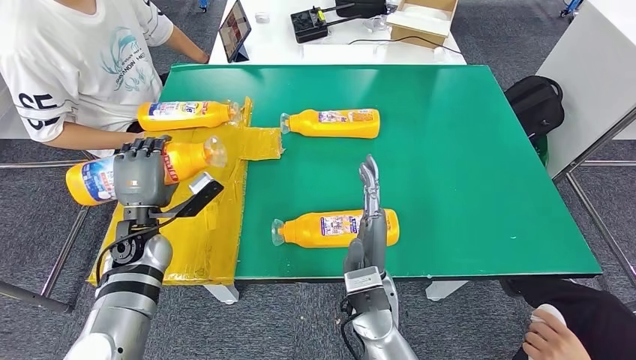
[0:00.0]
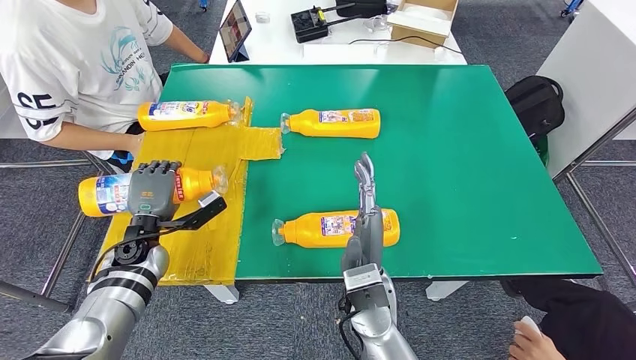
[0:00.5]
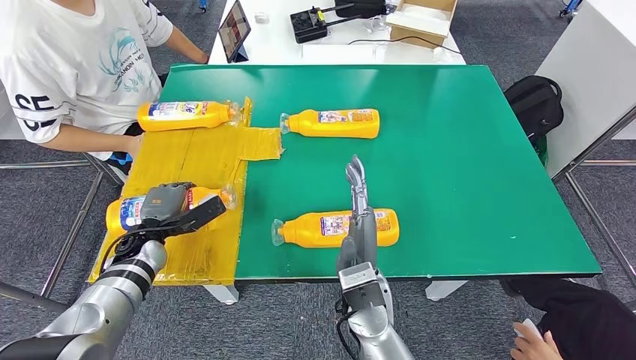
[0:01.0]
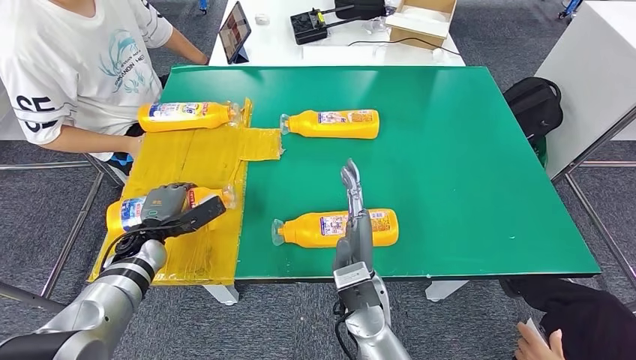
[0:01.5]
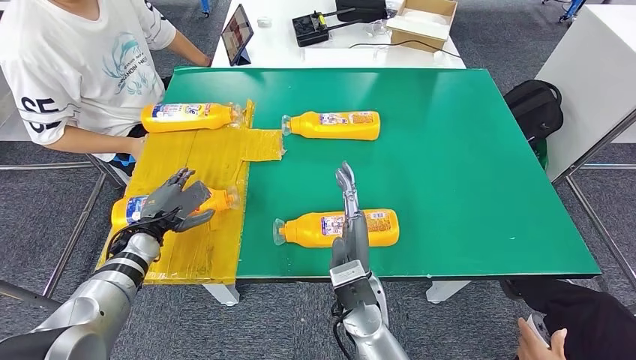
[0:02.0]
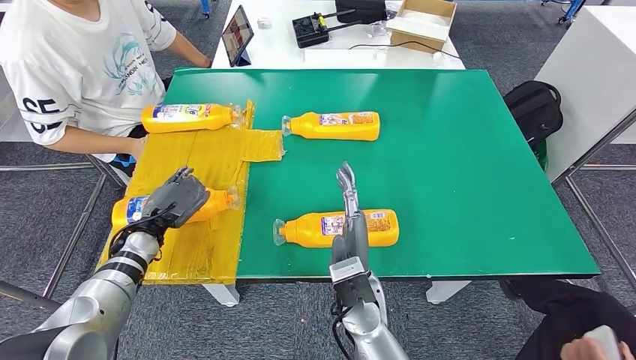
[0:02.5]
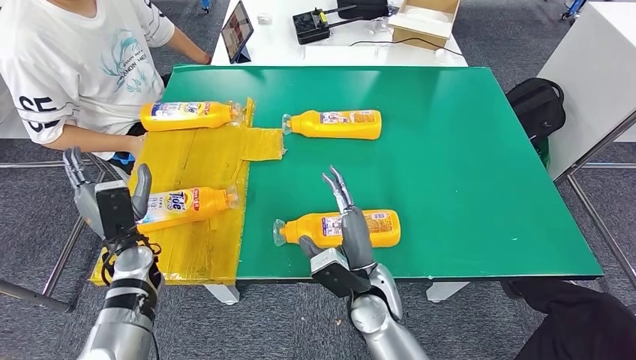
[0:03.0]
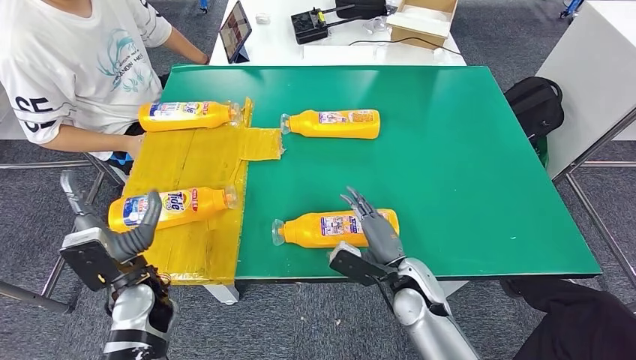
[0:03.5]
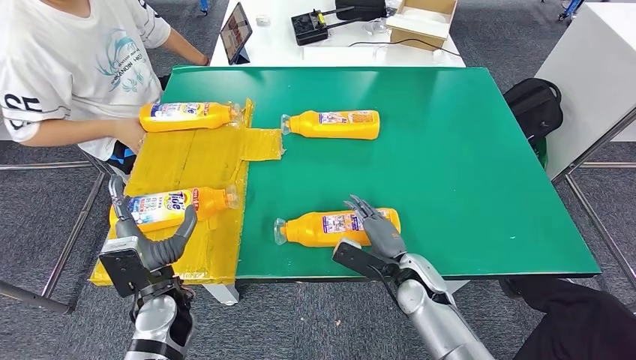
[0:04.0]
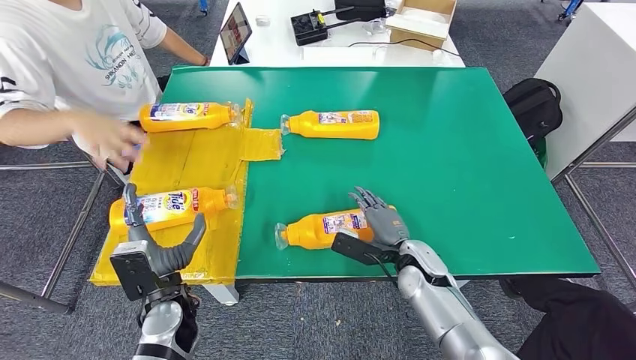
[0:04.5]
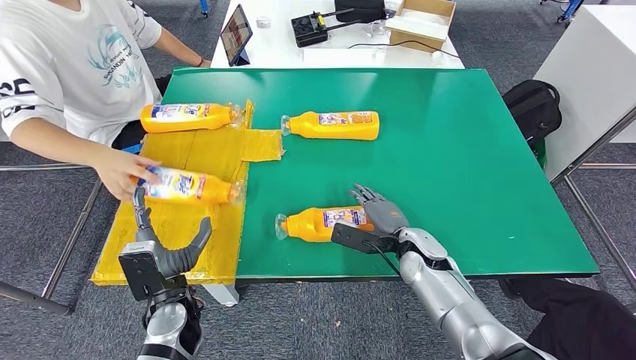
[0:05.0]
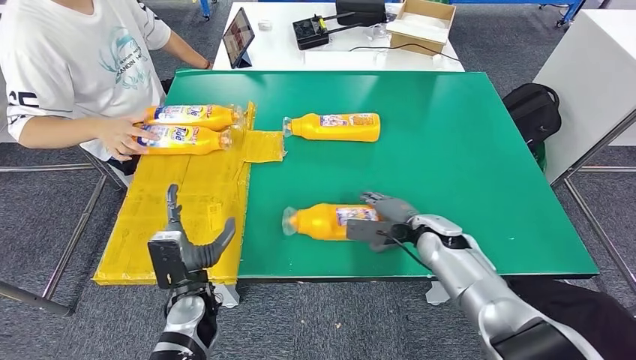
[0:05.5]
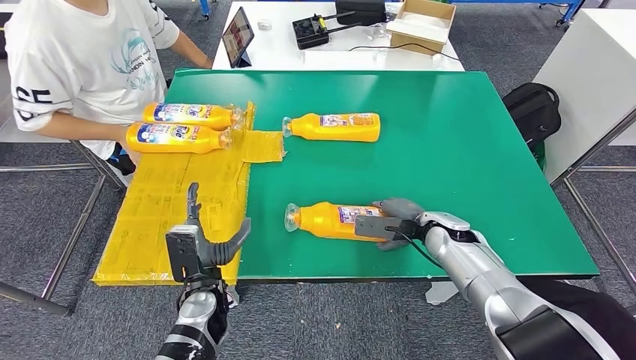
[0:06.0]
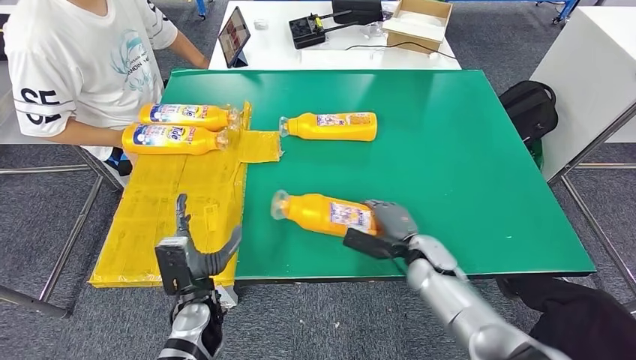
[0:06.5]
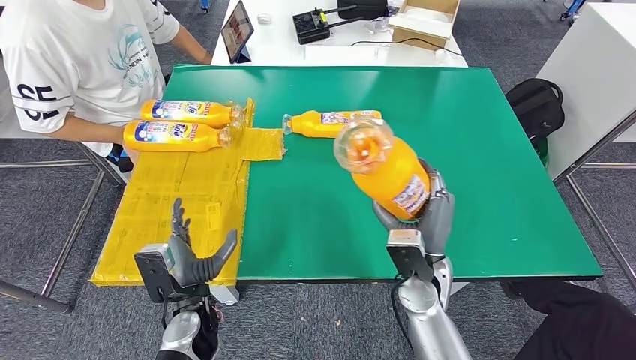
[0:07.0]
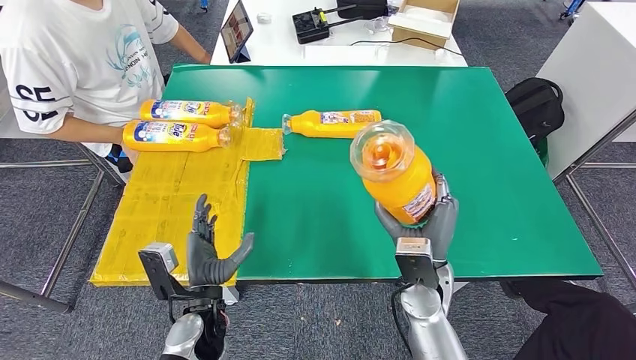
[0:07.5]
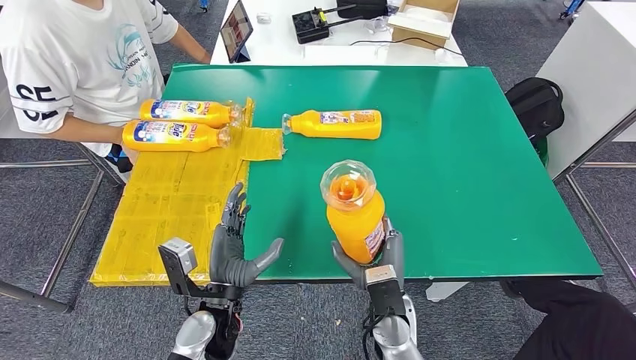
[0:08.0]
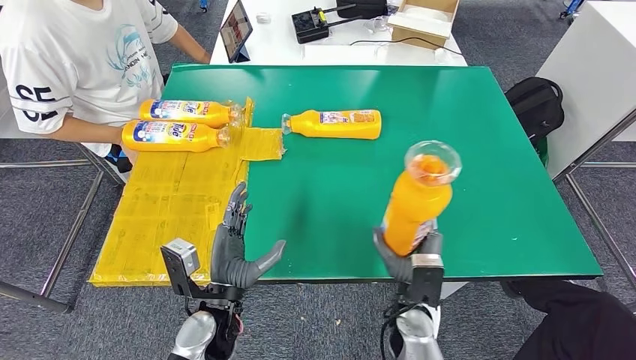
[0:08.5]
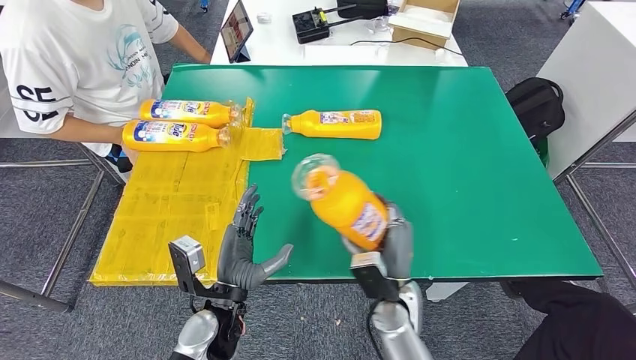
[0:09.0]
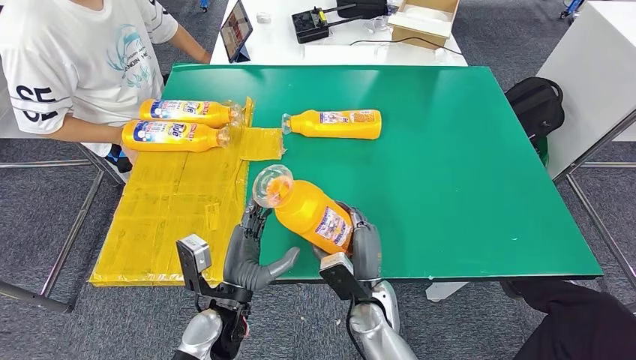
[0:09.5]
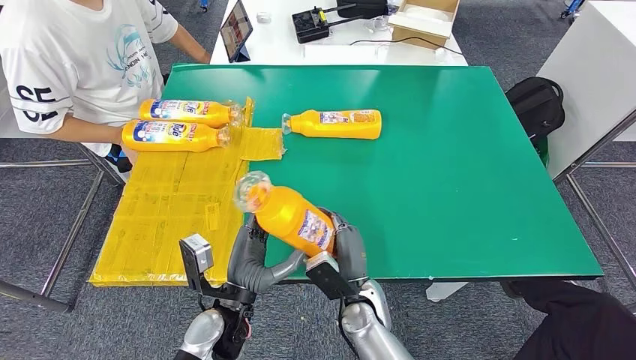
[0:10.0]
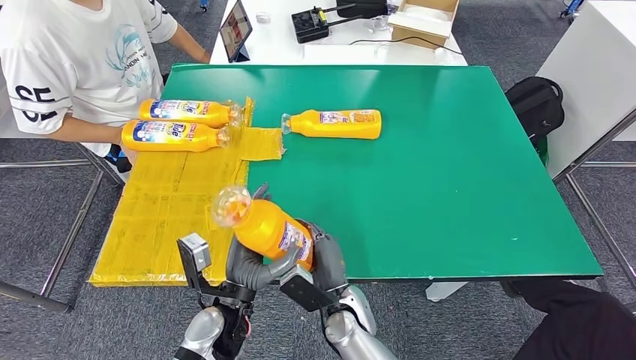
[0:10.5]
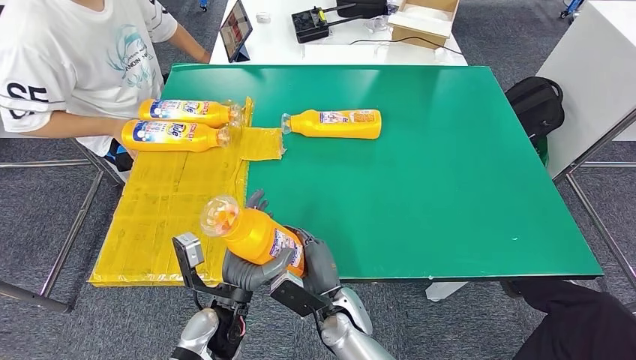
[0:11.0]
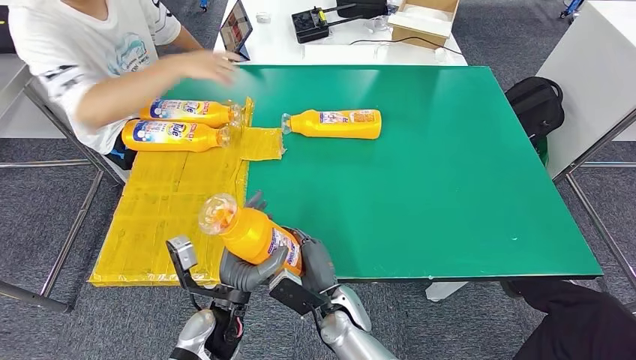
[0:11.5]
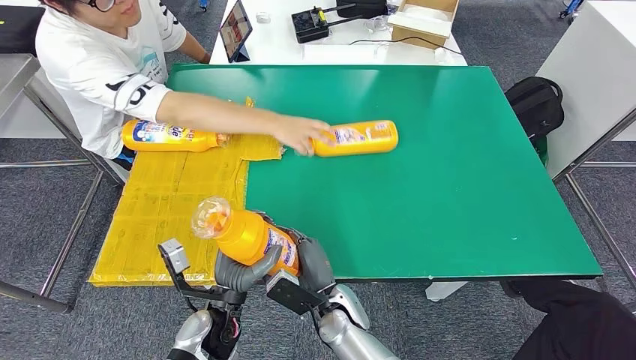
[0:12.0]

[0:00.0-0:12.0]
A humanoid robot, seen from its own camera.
Step, 0:00.0 to 0:02.0: Flip the fast-moving consumer goods bottle to the front side.
Step, 0:02.5 to 0:08.0: Pick up the fast-moving consumer goods bottle from the table.
0:08.0 to 0:10.0: The right hand ends up roughly 5 cm from where it was.

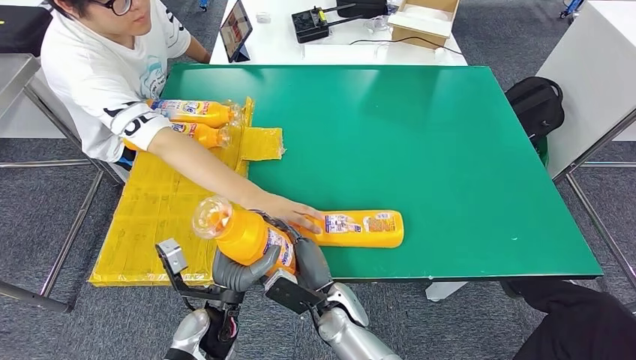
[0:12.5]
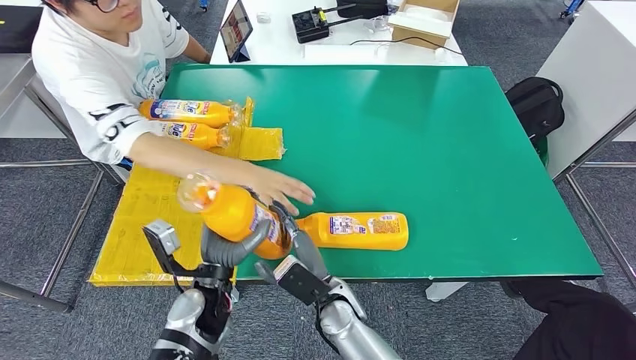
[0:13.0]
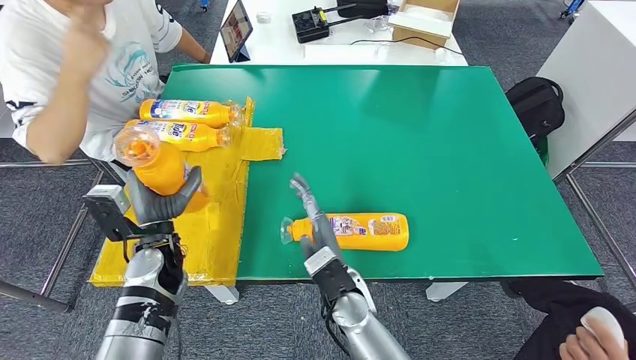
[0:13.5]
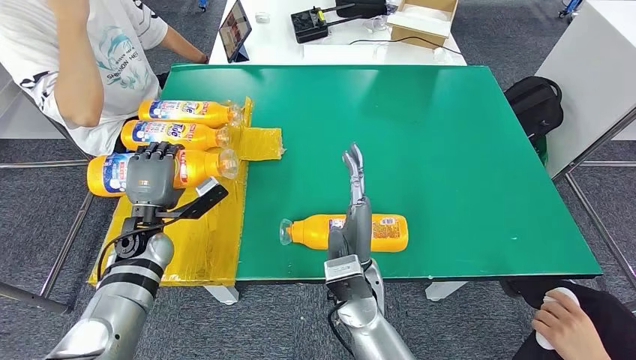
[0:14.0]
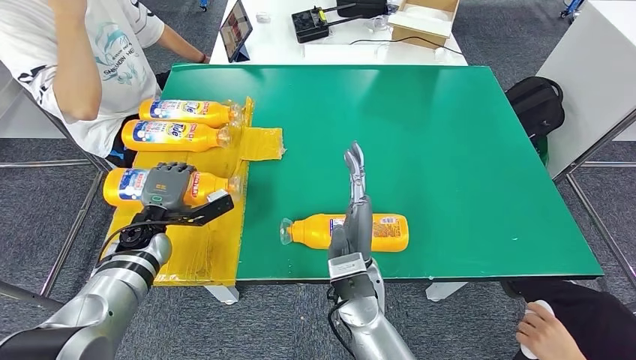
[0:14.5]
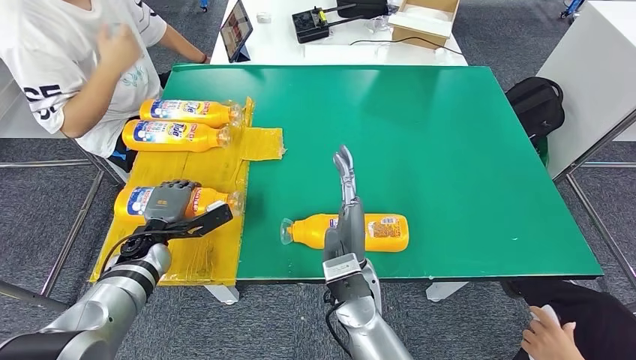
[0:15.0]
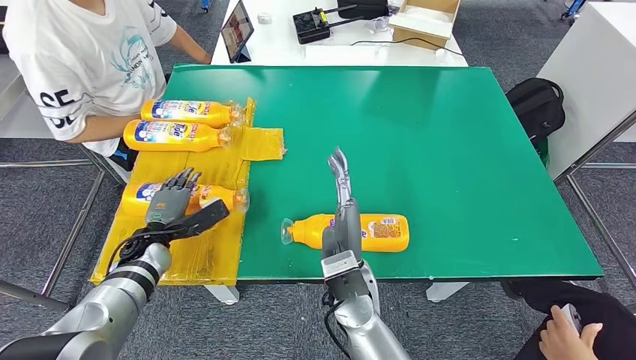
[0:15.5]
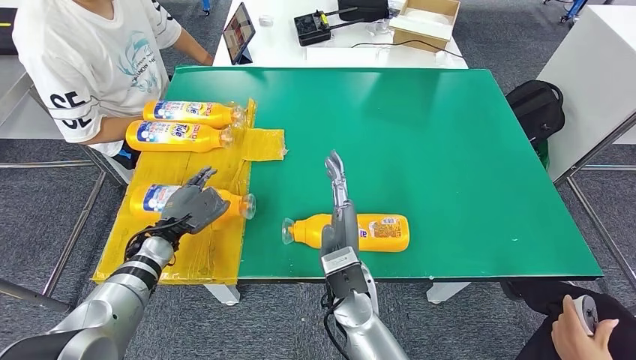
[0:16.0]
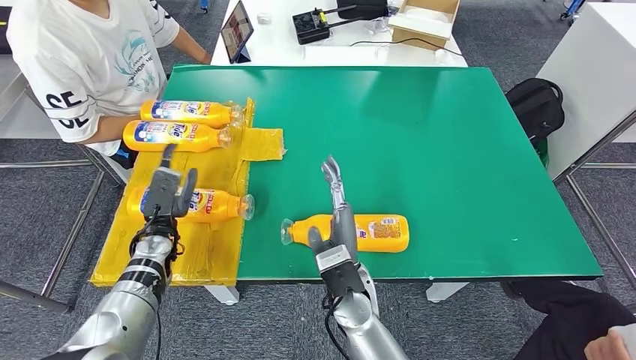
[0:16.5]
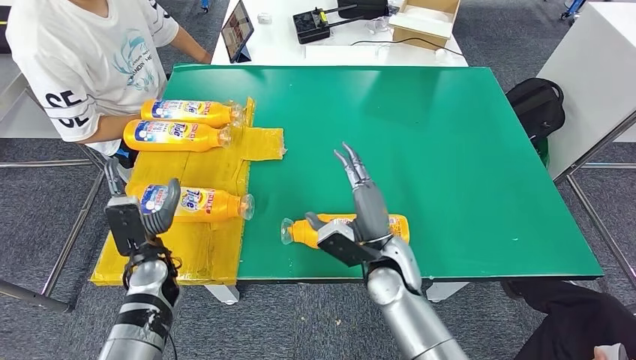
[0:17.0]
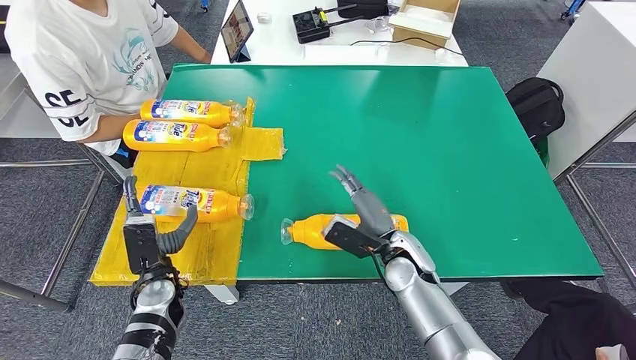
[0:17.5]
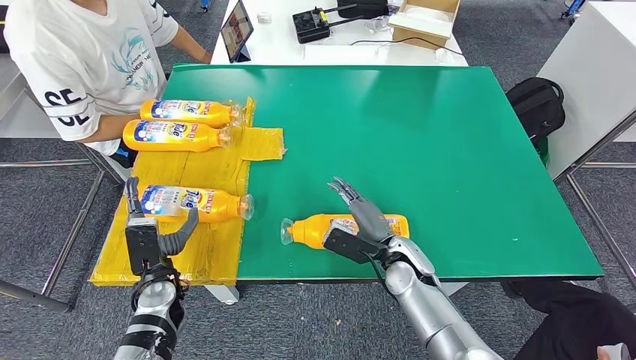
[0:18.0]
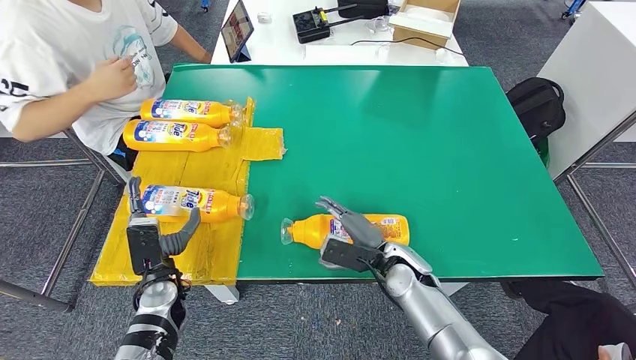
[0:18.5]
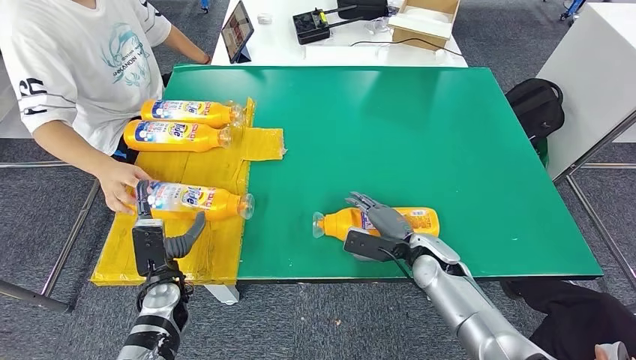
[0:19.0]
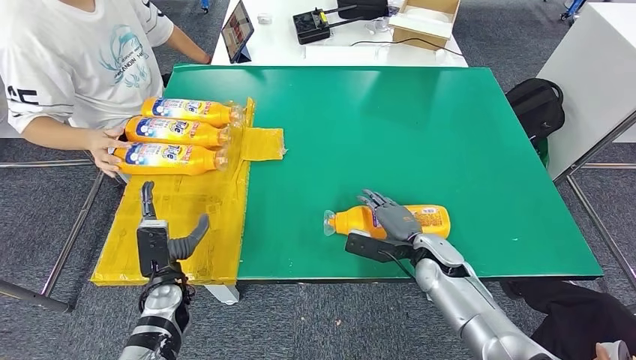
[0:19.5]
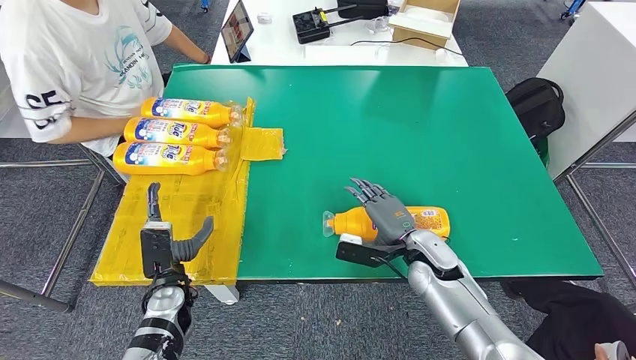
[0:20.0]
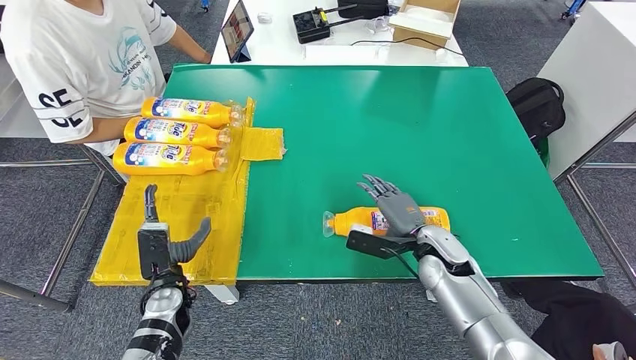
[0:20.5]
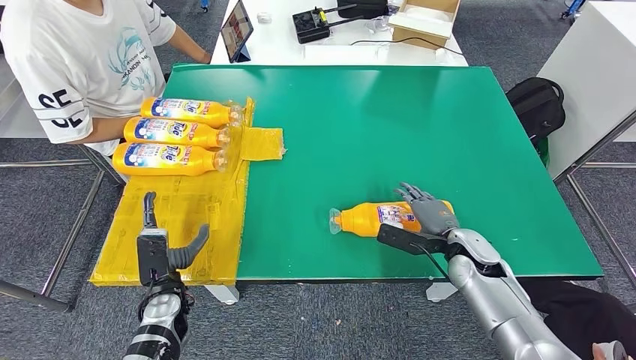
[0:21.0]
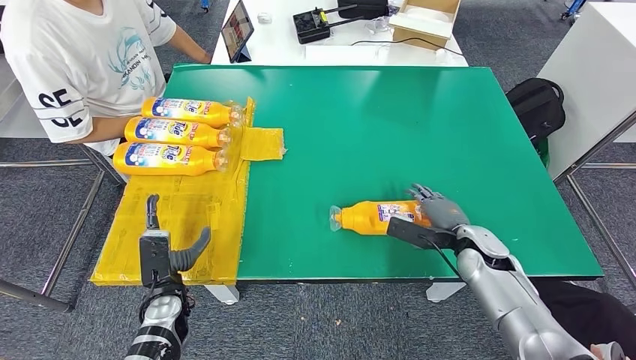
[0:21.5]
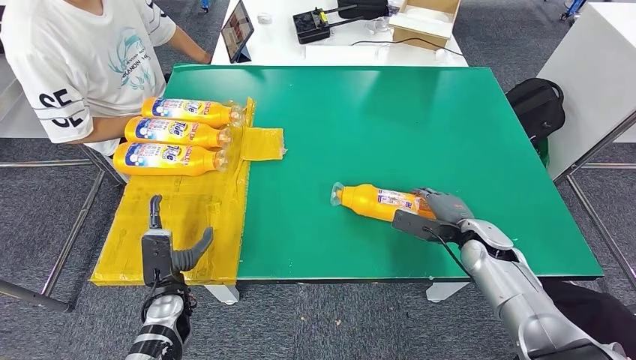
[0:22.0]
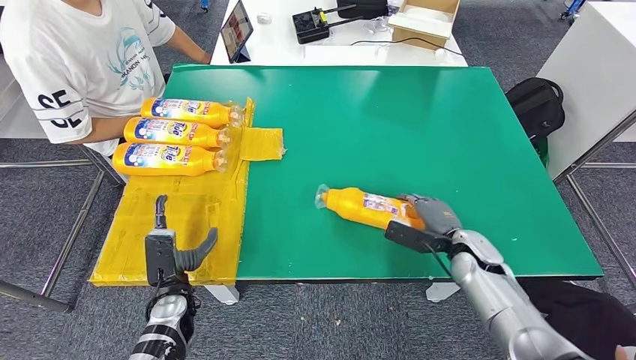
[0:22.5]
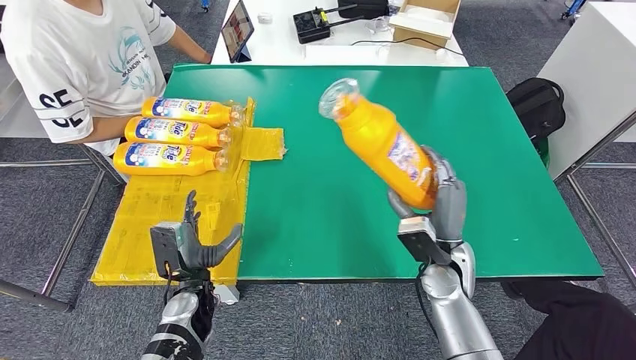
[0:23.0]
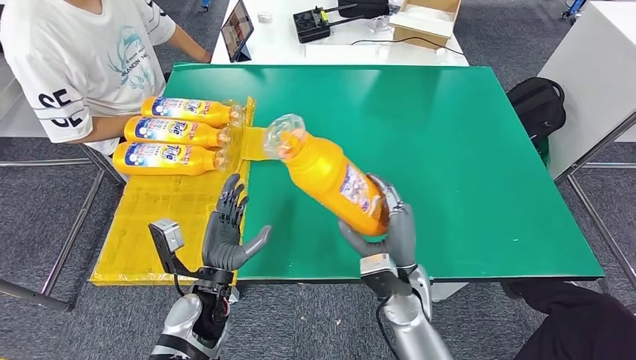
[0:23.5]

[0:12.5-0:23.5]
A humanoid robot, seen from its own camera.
Step, 0:12.5 to 0:16.0: Flip the fast-moving consumer goods bottle to the front side.
0:18.0 to 0:20.0: The right hand heads to the right, covering approximately 5 cm.
0:20.0 to 0:21.5: The right hand is displaced to the right by about 10 cm.
0:21.5 to 0:23.5: The right hand is displaced to the left and backward by roughly 20 cm, while the left hand goes approximately 10 cm to the right and upward.
